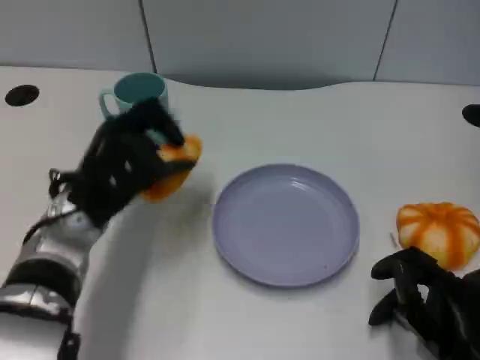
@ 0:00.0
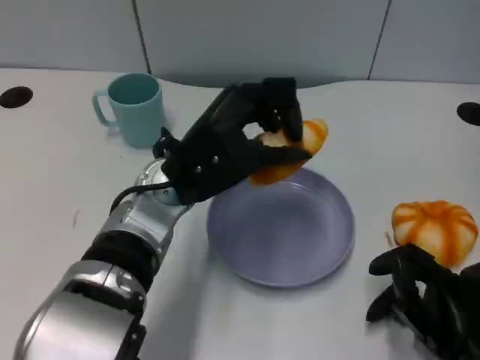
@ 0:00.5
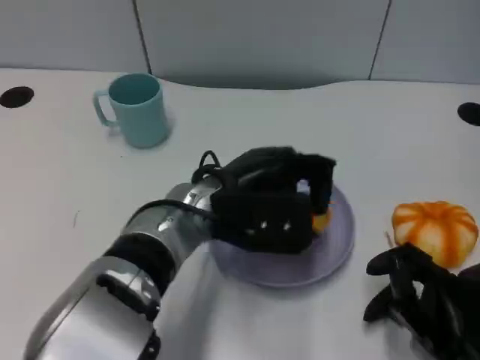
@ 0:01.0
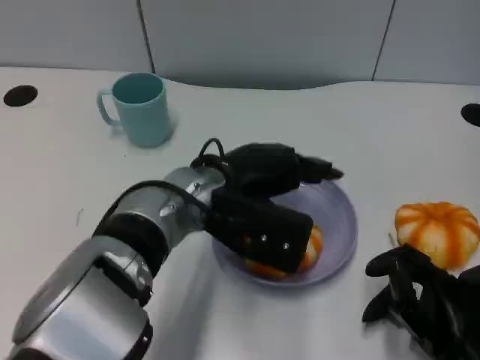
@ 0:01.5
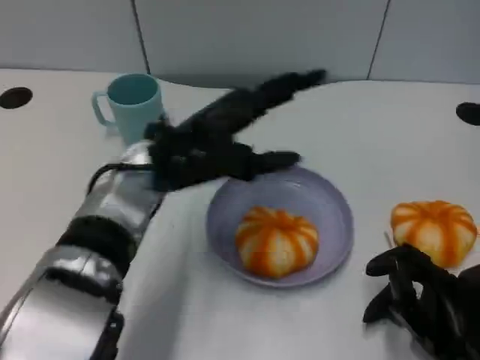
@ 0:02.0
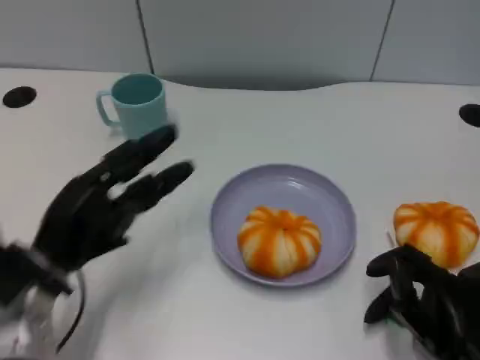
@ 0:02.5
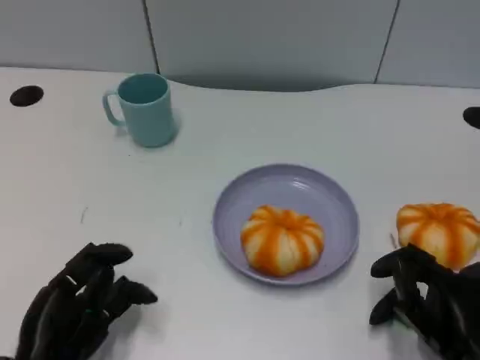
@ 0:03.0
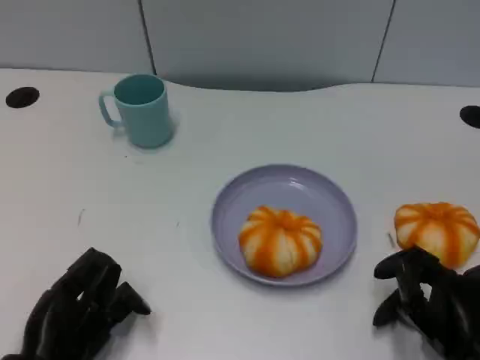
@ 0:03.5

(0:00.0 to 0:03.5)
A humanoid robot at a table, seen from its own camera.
Task of the whole recording: Grasp the bread from the table and place it into the plate.
0:02.0 - 0:03.5: The left hand is displaced backward, downward and to the left by approximately 25 cm.
